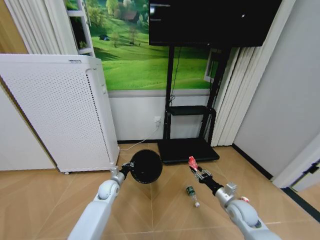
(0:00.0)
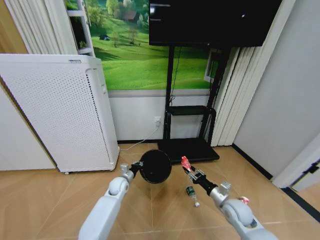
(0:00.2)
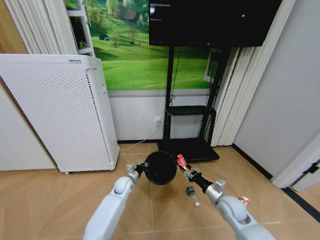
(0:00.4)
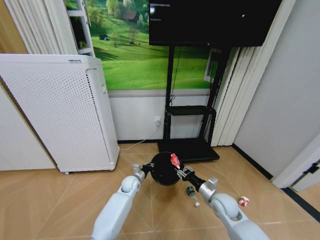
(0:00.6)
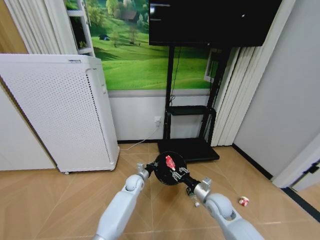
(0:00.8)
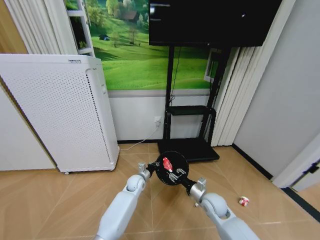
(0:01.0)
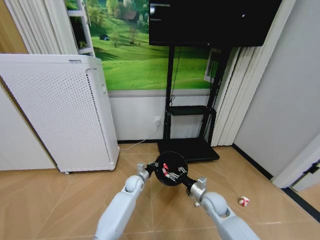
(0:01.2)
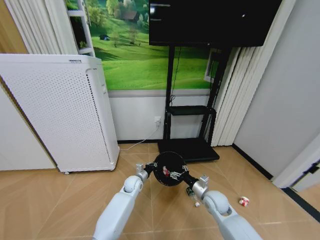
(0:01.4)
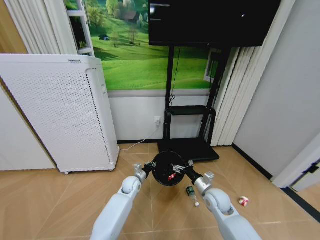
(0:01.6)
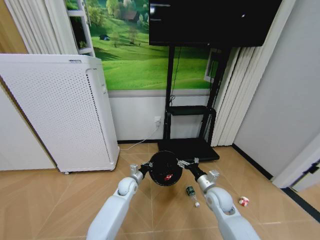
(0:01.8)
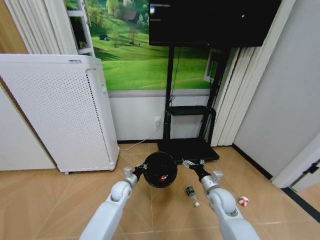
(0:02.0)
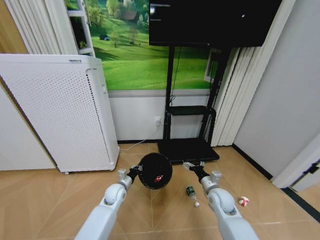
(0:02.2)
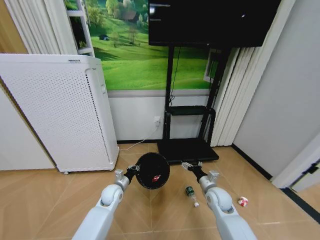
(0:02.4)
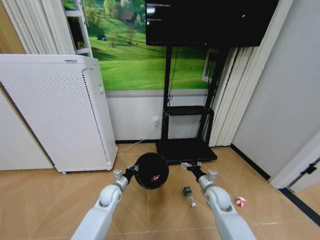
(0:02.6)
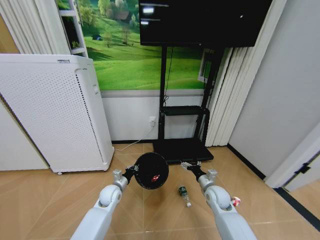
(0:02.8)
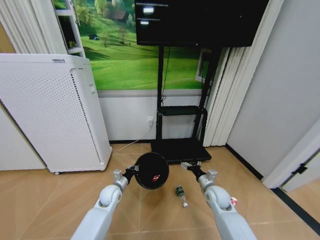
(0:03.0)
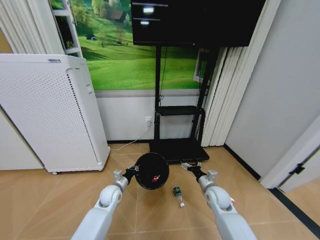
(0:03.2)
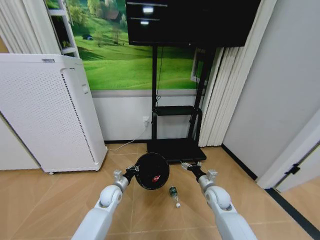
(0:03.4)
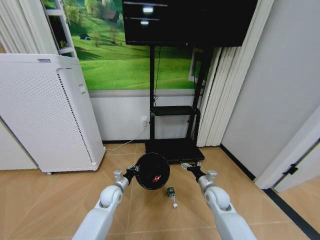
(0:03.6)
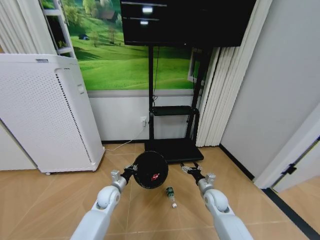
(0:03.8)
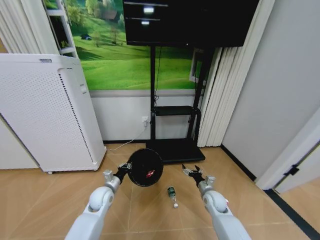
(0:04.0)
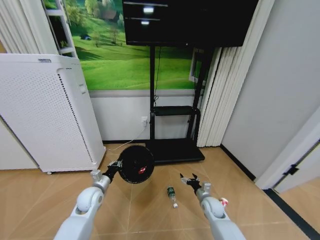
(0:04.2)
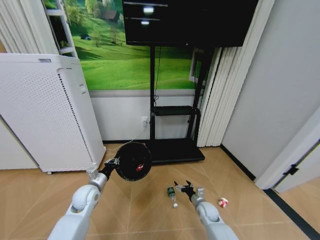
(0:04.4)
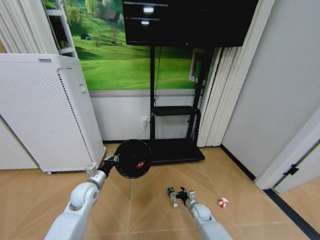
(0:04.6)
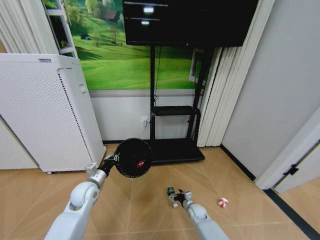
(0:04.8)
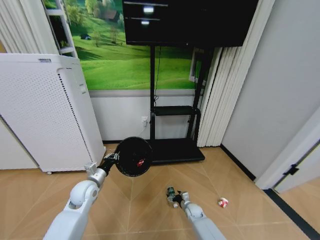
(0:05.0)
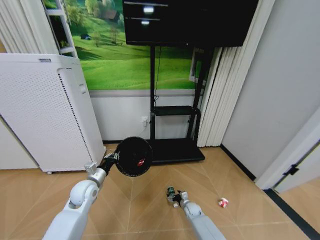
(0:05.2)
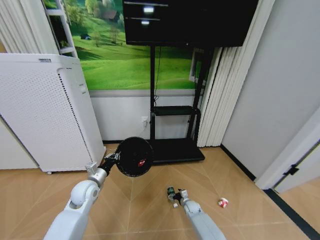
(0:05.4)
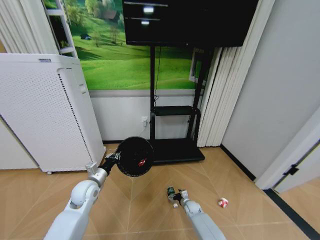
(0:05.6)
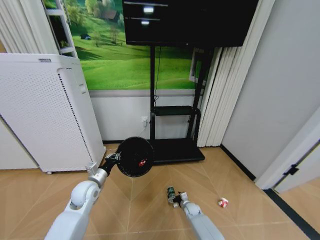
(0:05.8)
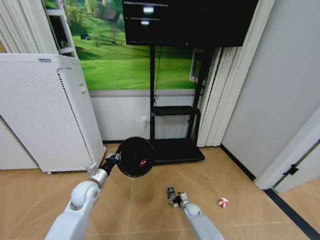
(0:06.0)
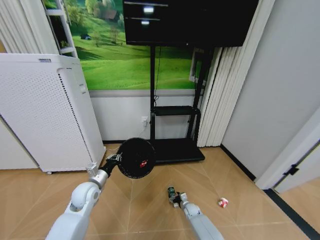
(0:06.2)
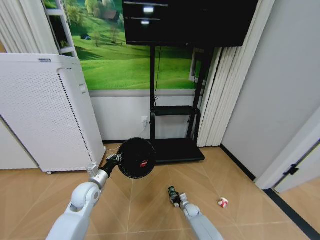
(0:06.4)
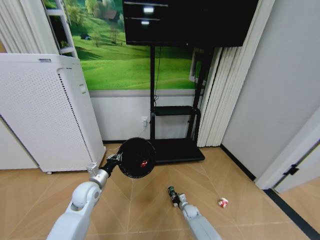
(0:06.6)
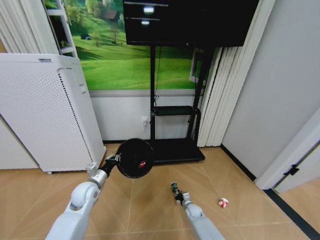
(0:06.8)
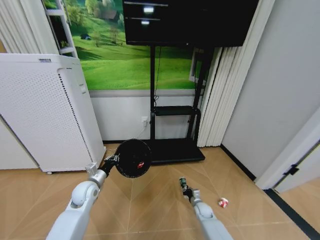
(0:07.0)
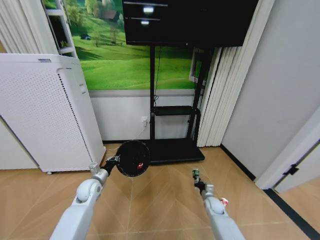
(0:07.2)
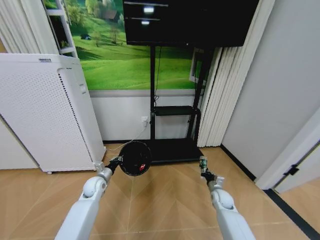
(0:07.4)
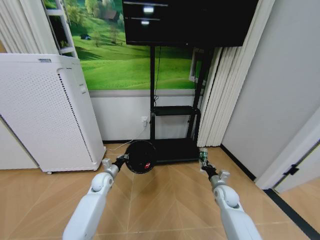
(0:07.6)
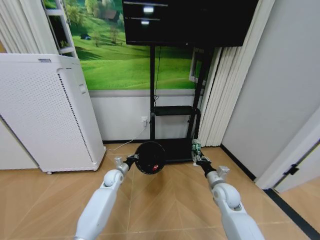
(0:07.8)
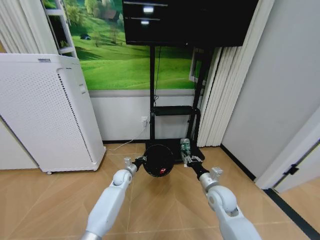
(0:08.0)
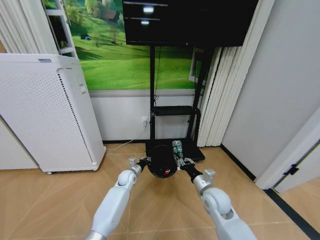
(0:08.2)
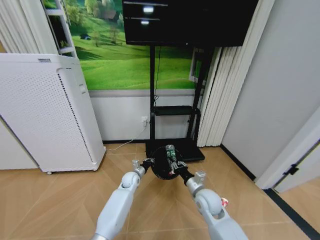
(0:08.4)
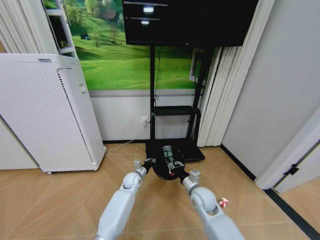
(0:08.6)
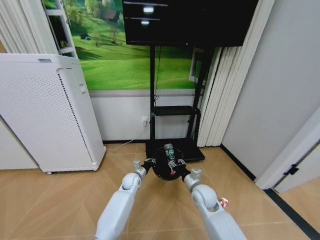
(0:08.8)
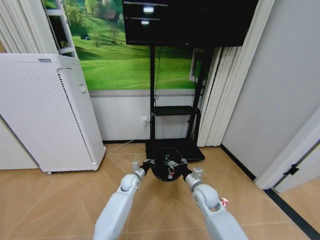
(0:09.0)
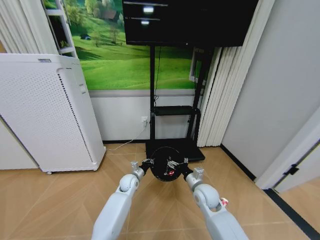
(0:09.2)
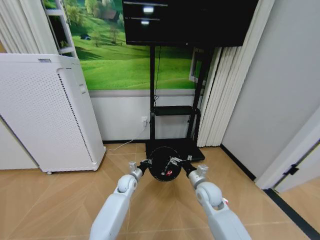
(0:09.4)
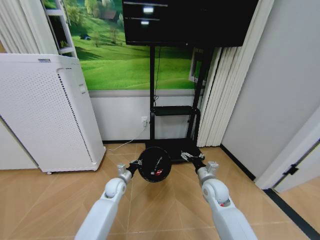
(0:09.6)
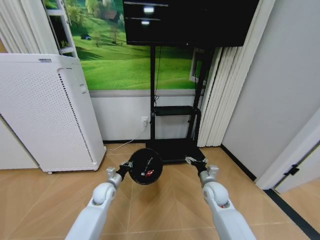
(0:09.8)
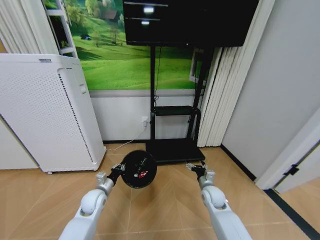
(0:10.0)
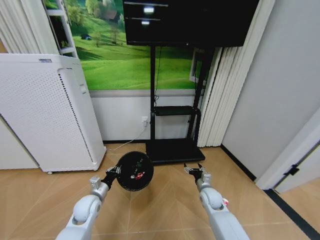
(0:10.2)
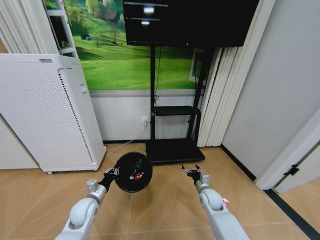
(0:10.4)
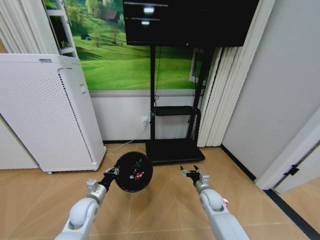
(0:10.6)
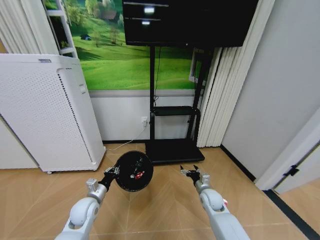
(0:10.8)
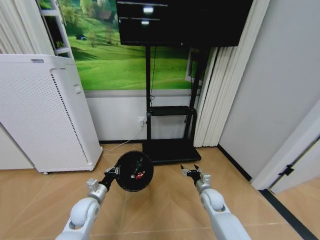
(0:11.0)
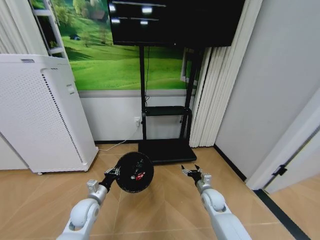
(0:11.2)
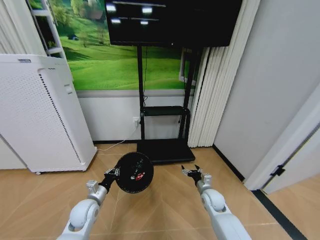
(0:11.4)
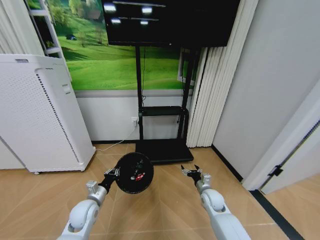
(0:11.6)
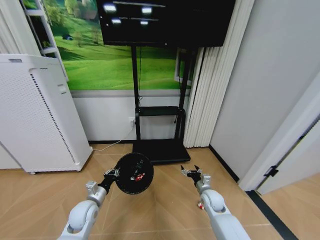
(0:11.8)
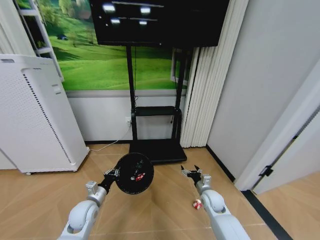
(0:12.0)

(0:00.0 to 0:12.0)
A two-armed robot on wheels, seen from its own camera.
Task of the whole recording: Pick up the trash bin and place the garbage on the floor into it.
0:00.0 - 0:01.6: The right gripper shifts some 10 cm to the left, and opens its fingers. Meanwhile the left gripper is displaced to the right by roughly 10 cm.
0:01.6 - 0:03.0: The left gripper heads to the left and backward, covering approximately 10 cm.
0:03.0 - 0:04.4: The right gripper moves downward, roughly 15 cm. Meanwhile the left gripper shifts some 10 cm to the left and upward.
0:04.4 - 0:06.0: The right gripper goes some 10 cm downward.
0:06.0 - 0:07.6: The left gripper is displaced forward and downward by some 10 cm, while the right gripper moves upward and to the right, approximately 25 cm, and closes its fingers.
0:07.6 - 0:09.0: The left gripper travels to the right by approximately 15 cm. The right gripper heads to the left, covering roughly 15 cm, and opens up.
0:09.0 - 0:10.4: The left gripper shifts roughly 20 cm to the left and backward. Meanwhile the right gripper goes about 10 cm downward and to the right, and opens.

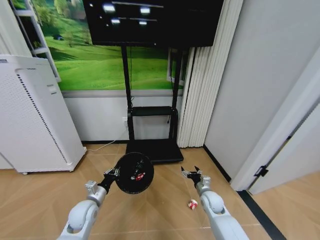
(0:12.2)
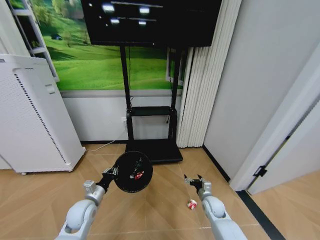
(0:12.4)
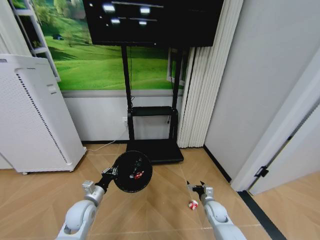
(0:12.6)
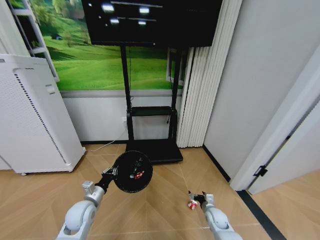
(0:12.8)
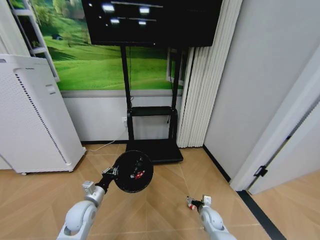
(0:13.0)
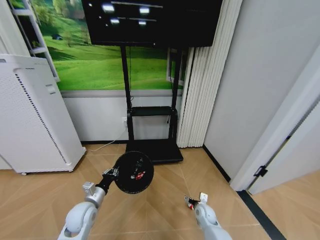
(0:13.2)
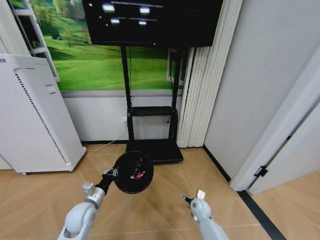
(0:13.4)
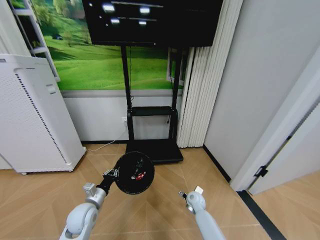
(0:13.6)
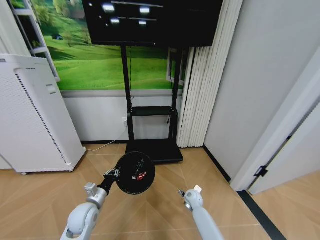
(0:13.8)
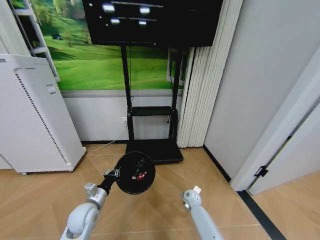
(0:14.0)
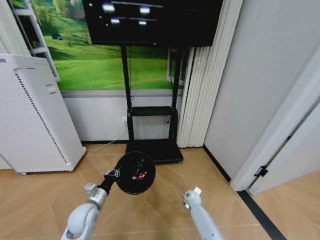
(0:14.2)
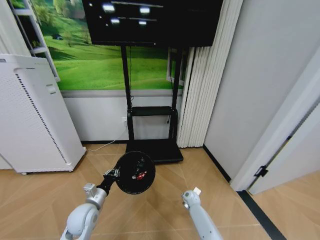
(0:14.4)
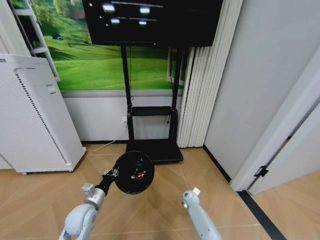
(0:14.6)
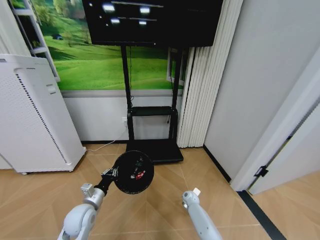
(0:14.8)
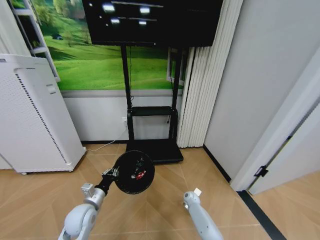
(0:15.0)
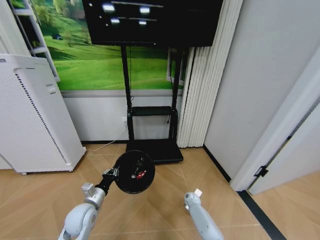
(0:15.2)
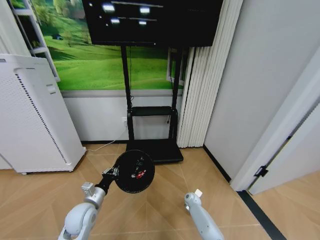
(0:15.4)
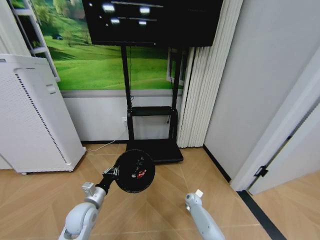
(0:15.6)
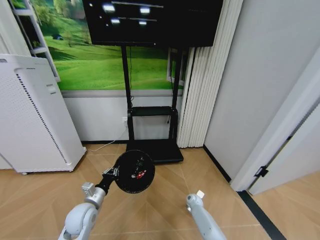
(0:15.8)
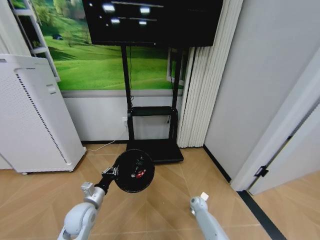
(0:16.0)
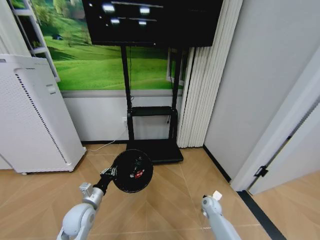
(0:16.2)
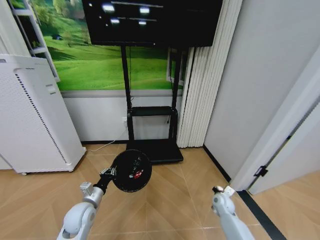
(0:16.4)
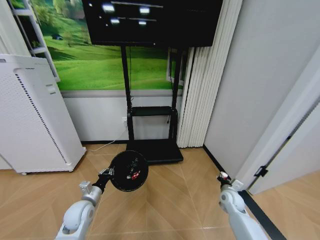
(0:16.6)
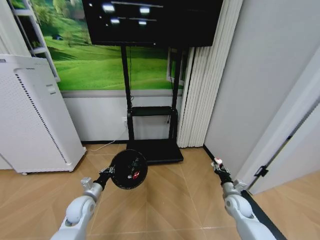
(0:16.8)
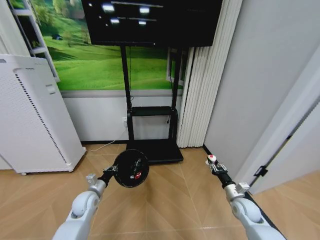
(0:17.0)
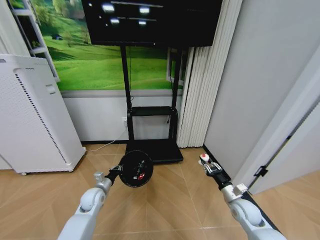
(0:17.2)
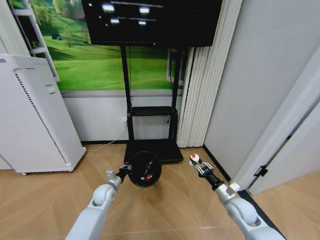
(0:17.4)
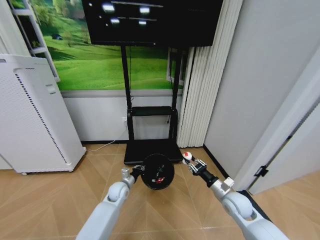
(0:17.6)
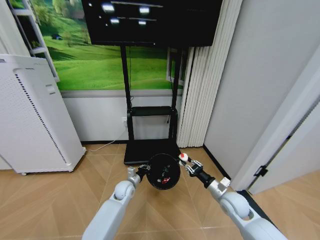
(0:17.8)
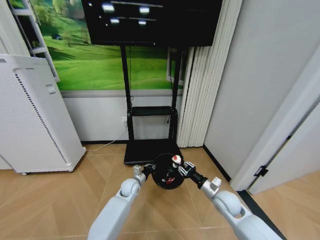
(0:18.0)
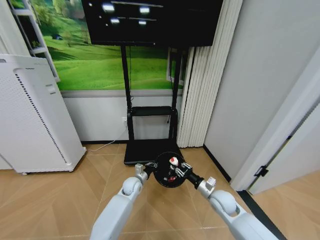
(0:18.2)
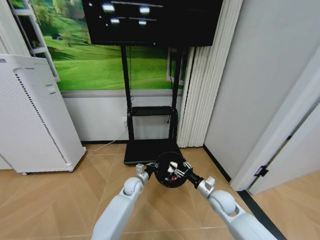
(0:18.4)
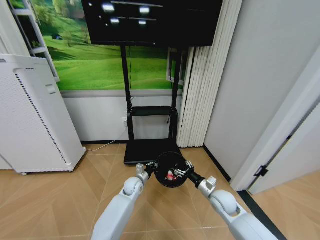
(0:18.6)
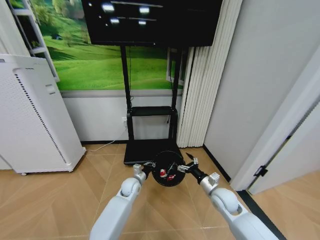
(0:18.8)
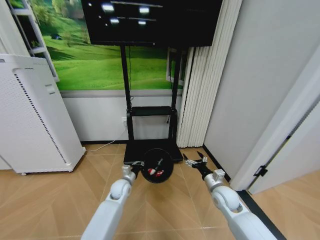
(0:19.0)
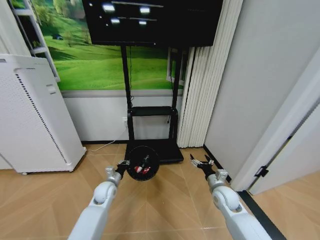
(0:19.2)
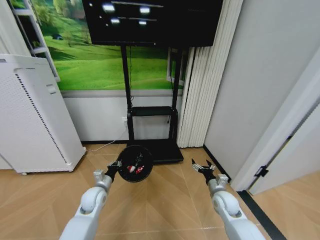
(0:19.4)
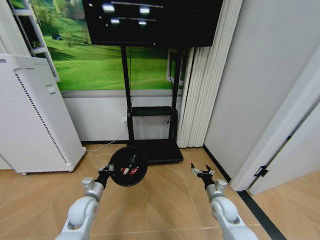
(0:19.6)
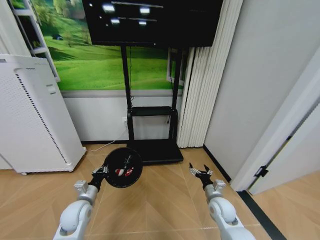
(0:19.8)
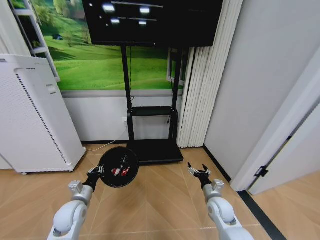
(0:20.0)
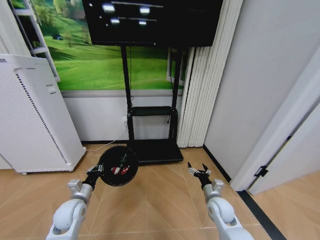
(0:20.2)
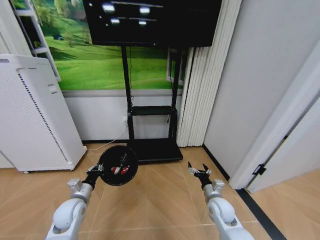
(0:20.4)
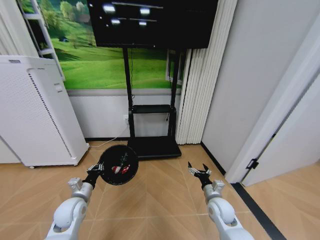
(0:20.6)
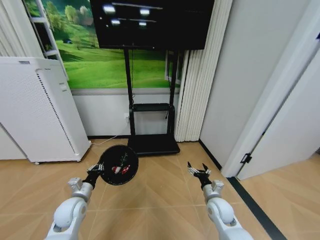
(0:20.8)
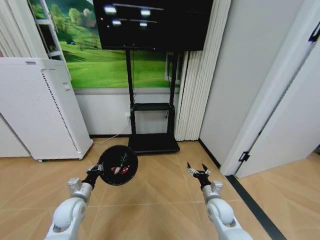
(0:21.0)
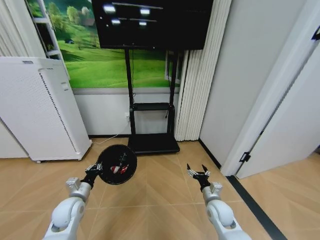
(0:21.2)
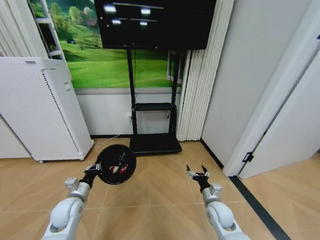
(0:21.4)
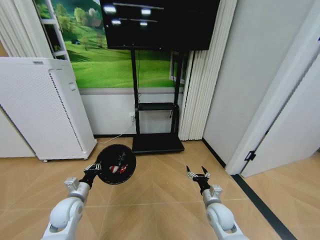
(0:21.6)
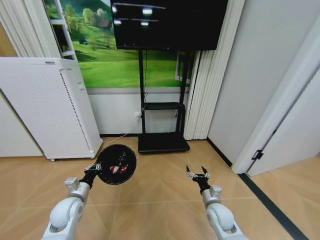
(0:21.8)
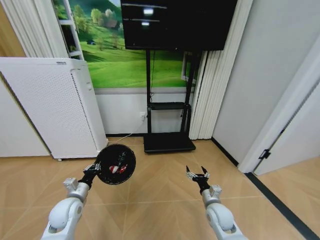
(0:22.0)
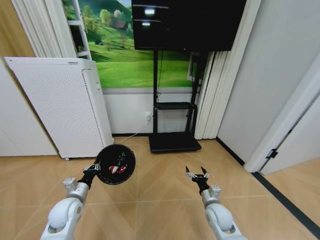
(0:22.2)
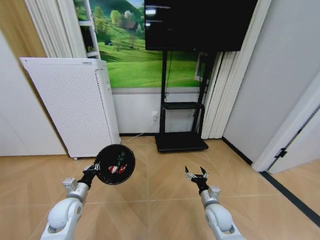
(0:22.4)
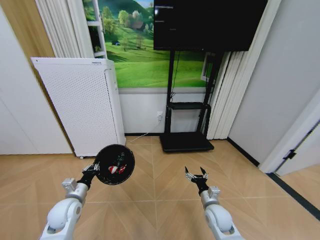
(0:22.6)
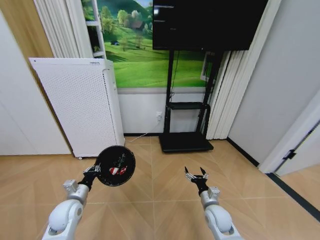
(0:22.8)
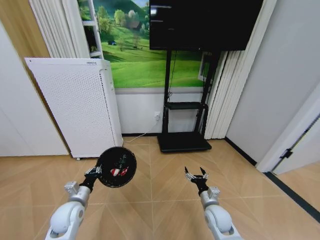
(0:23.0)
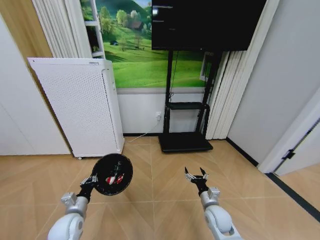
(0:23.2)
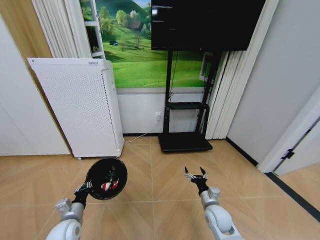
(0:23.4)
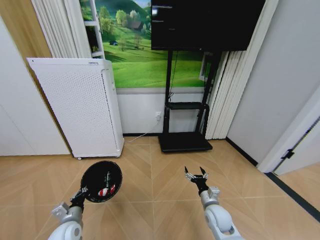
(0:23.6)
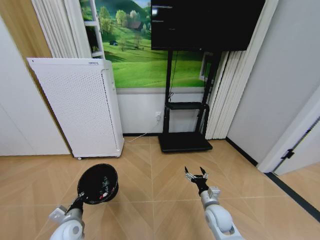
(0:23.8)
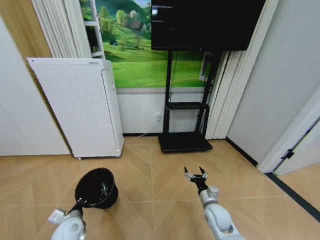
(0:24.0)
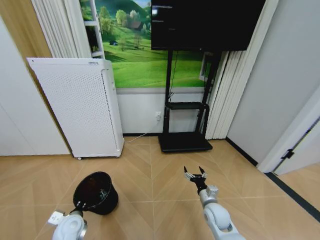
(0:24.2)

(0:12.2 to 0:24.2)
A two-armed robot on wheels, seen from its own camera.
Task of the whole recording: Pick up the trash bin and place the garbage on the floor into it.
0:12.2 - 0:13.8: The right gripper travels downward and to the left by some 10 cm.
0:13.8 - 0:15.2: The right gripper shifts some 10 cm downward.
0:15.2 - 0:16.6: The right gripper is displaced upward, to the right and backward by about 20 cm, and closes.
0:16.6 - 0:18.2: The left gripper goes roughly 25 cm to the right and forward; the right gripper is displaced to the left and upward by about 10 cm.
0:18.2 - 0:19.8: The right gripper opens, while the left gripper moves to the left and backward, roughly 25 cm.
0:22.6 - 0:24.2: The left gripper travels downward by roughly 5 cm.
